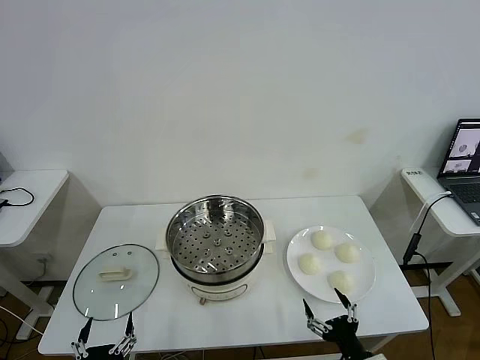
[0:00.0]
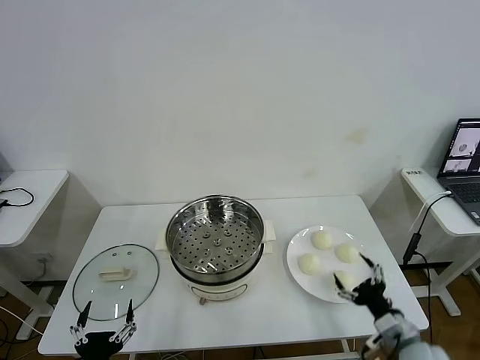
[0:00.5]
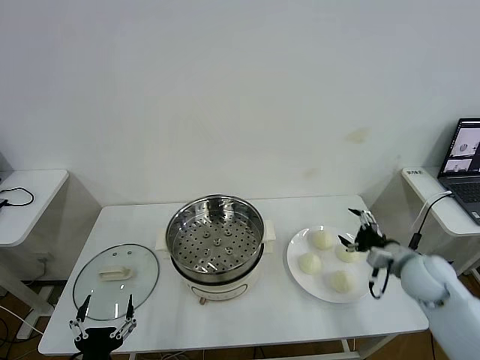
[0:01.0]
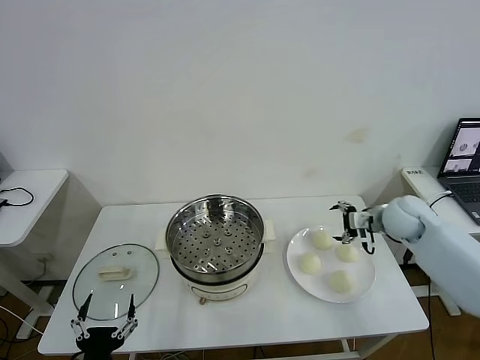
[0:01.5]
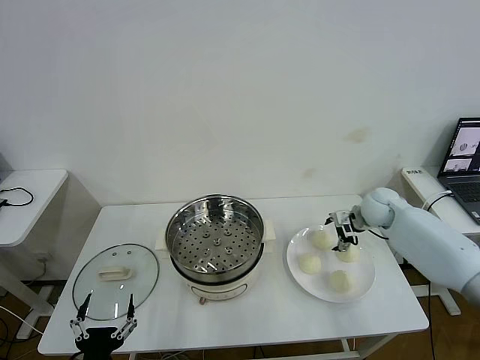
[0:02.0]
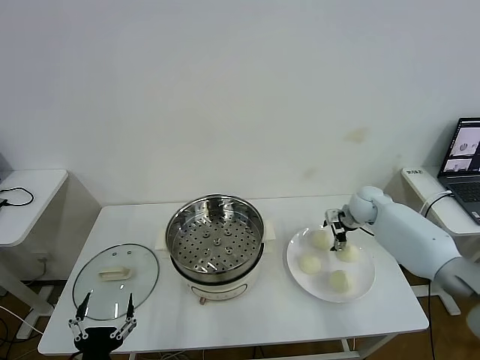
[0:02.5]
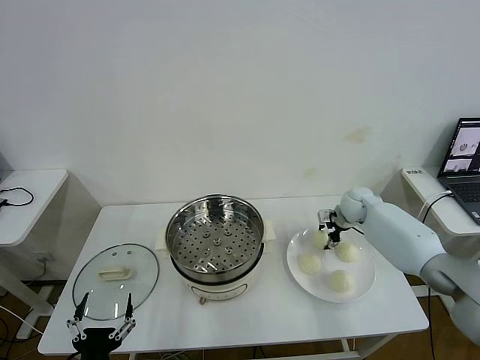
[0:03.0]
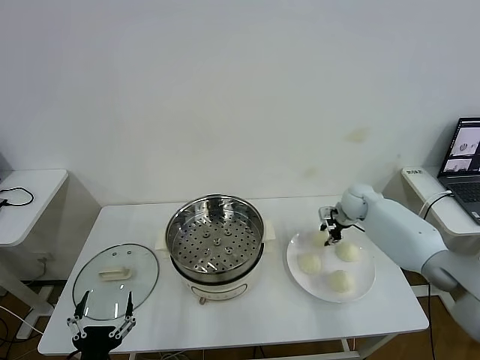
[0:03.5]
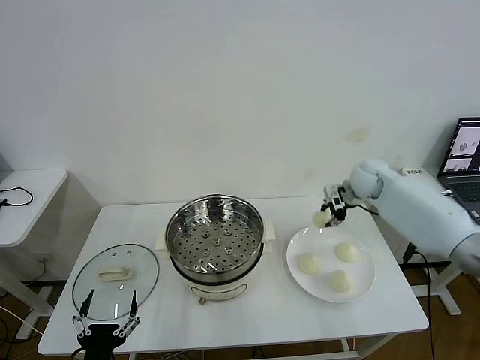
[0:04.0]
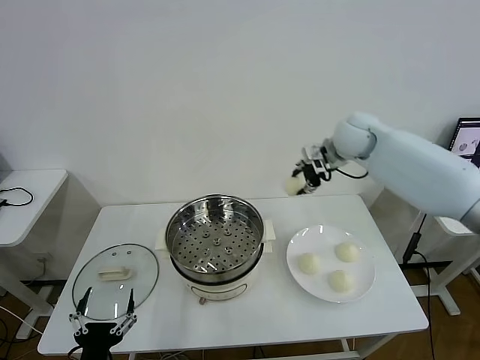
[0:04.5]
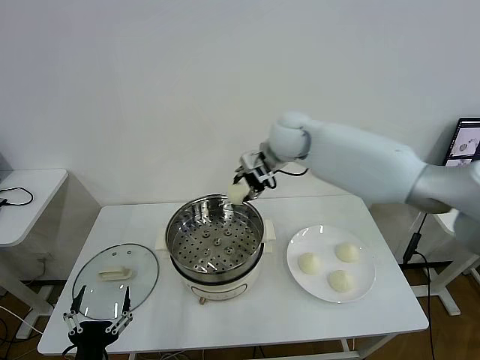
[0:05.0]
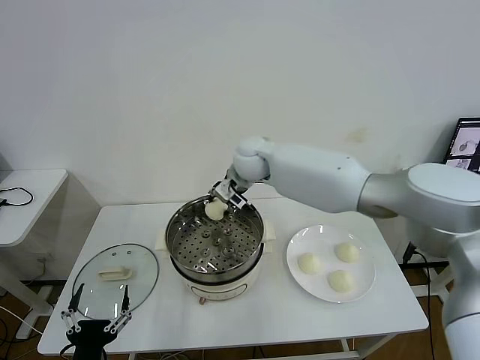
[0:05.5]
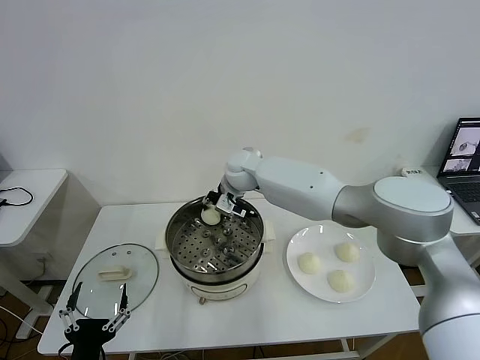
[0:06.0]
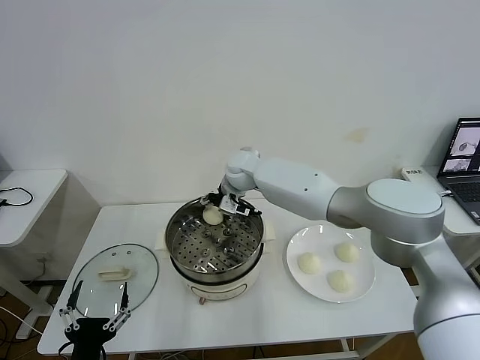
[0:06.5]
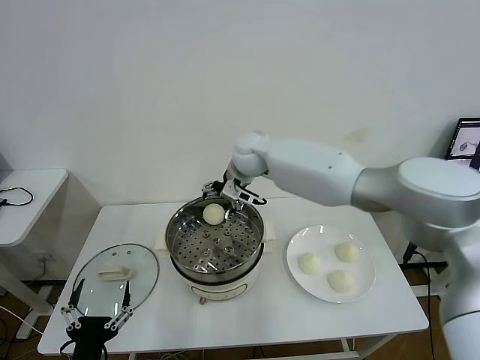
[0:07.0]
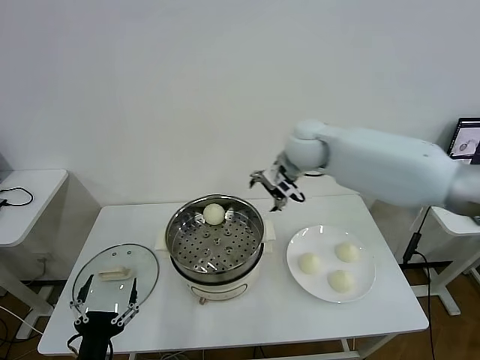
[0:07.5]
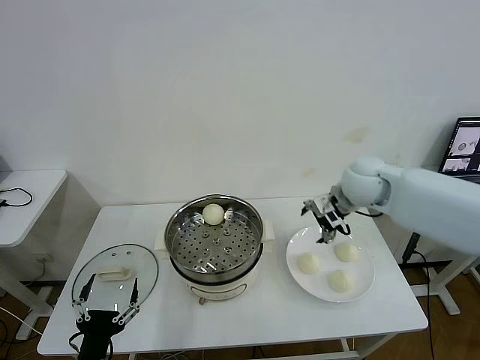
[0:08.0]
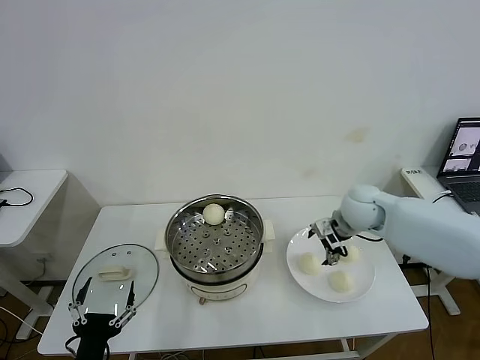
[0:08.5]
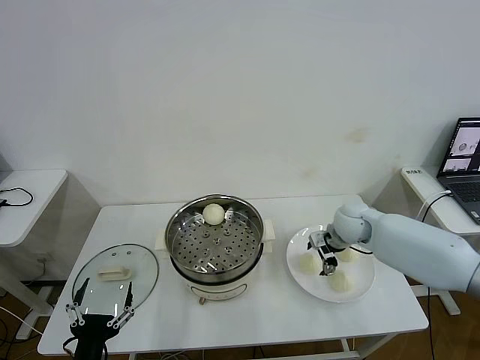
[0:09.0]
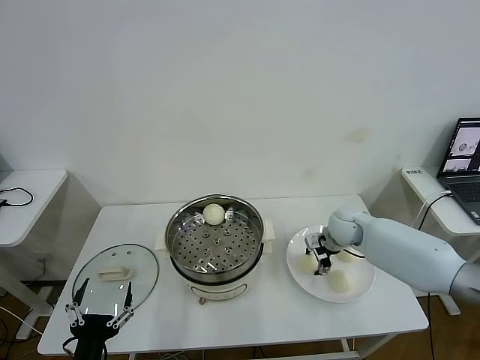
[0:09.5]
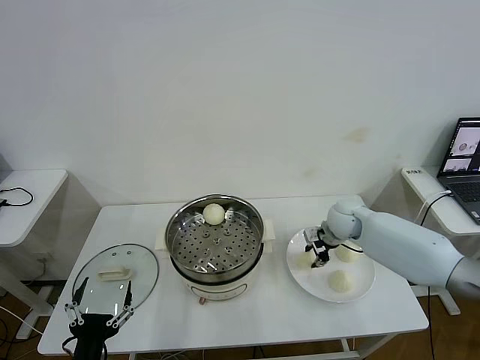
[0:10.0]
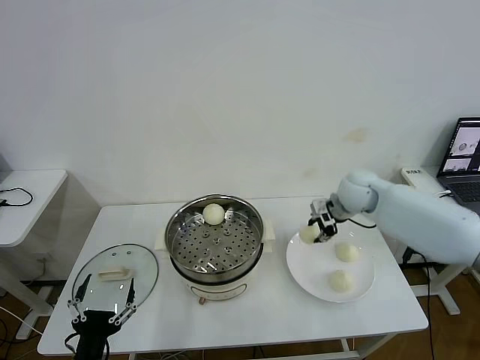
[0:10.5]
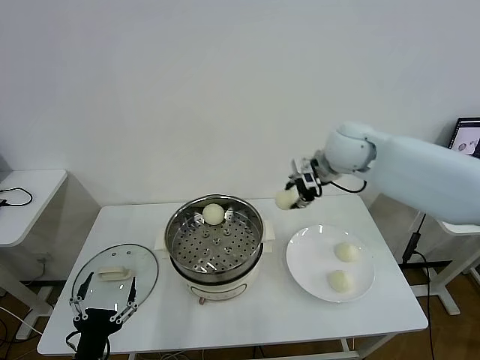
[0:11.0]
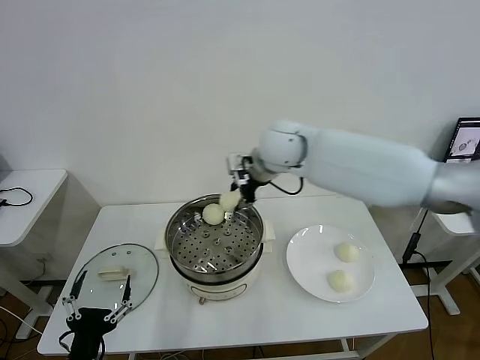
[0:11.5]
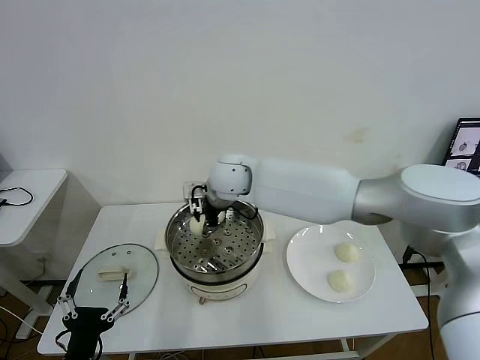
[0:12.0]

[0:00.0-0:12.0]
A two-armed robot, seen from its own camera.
Task of the whole recording: take steamed baozi put them in steamer then cover it.
Step, 0:00.0 to 0:03.0: Grasp the baozi in the plate with right gripper.
Step, 0:03.5 to 0:06.5: Place the baozi on the steamer with right gripper.
Step, 0:07.0 to 0:09.5: Grasp the baozi in the plate with right gripper.
0:02.0 to 0:04.0: The right gripper goes approximately 10 cm upward, and closes its fingers.
0:04.0 to 0:06.0: The right gripper goes some 30 cm to the left.
0:06.0 to 0:08.0: The right gripper goes about 25 cm to the right, and opens.
0:08.0 to 0:10.0: The right gripper travels downward by roughly 15 cm, and closes its fingers.
0:10.0 to 0:12.0: The right gripper is displaced to the left and upward by roughly 35 cm.

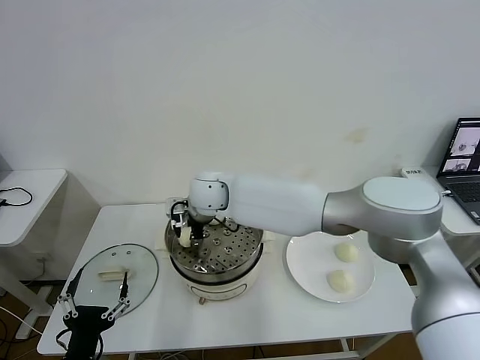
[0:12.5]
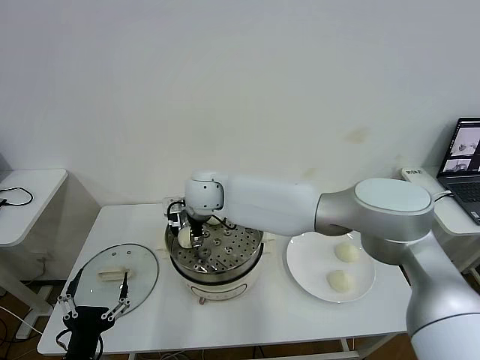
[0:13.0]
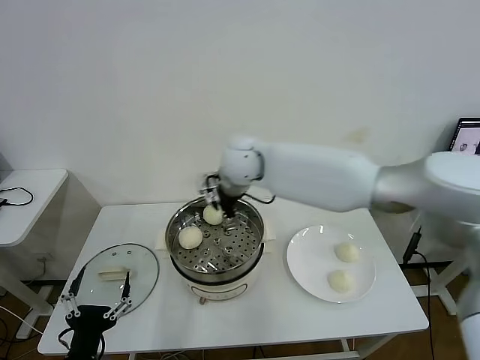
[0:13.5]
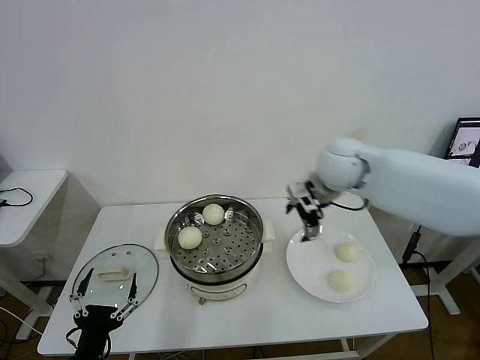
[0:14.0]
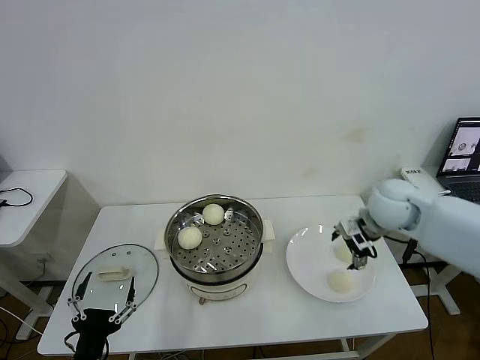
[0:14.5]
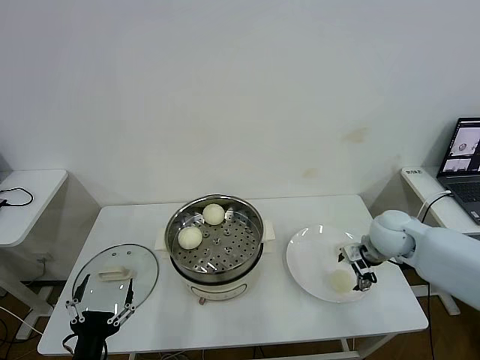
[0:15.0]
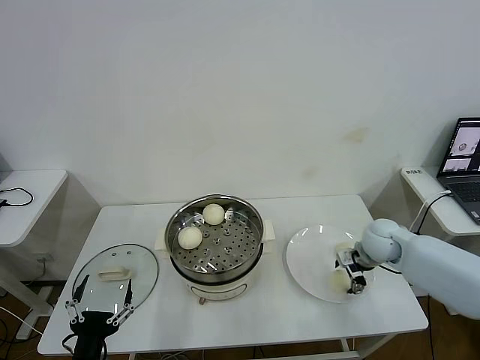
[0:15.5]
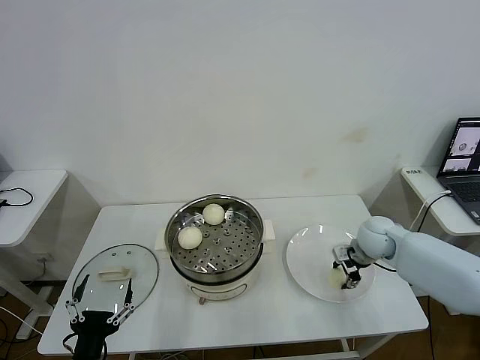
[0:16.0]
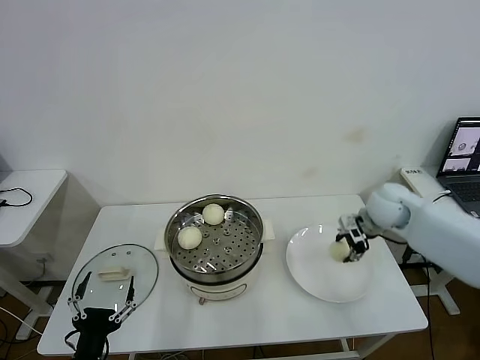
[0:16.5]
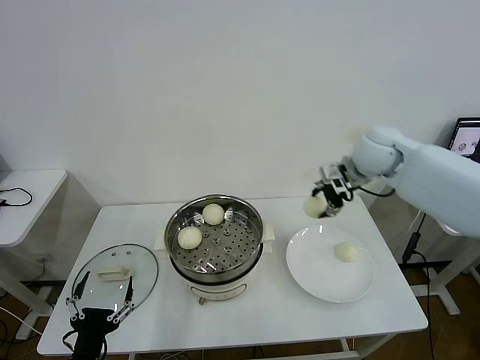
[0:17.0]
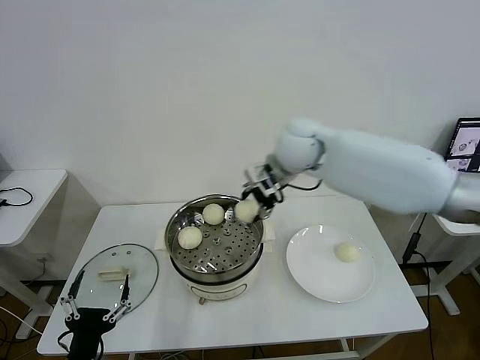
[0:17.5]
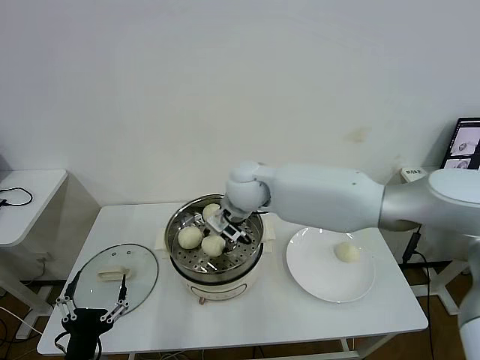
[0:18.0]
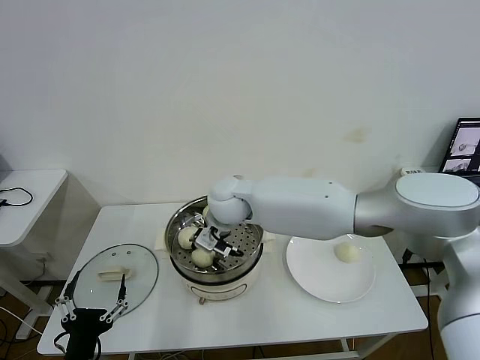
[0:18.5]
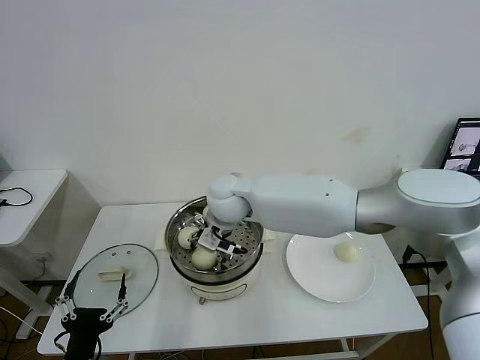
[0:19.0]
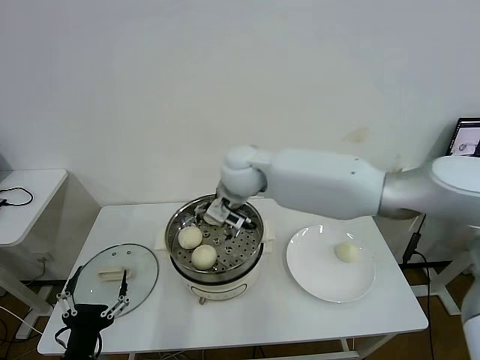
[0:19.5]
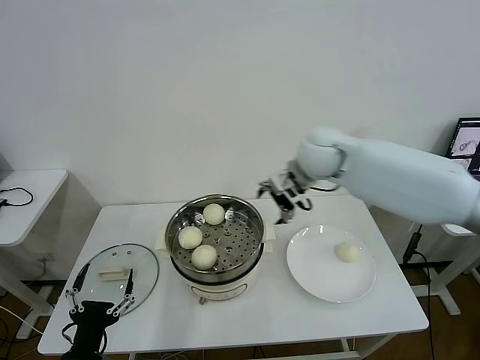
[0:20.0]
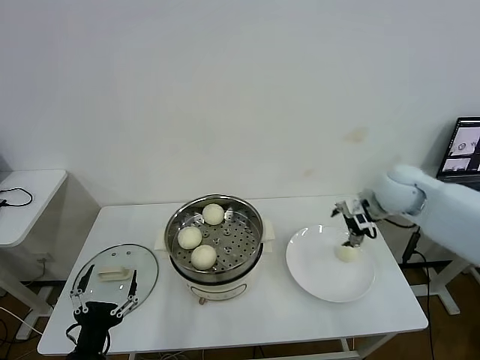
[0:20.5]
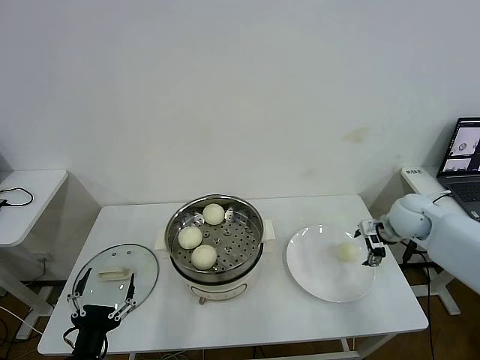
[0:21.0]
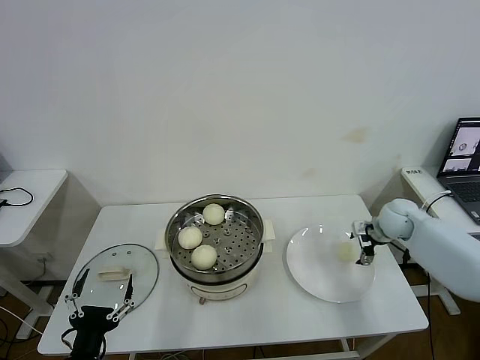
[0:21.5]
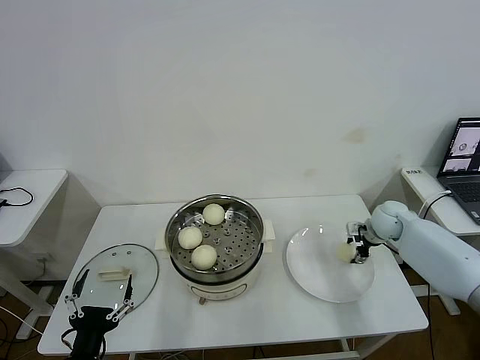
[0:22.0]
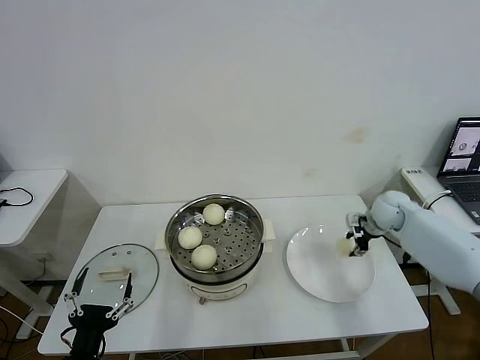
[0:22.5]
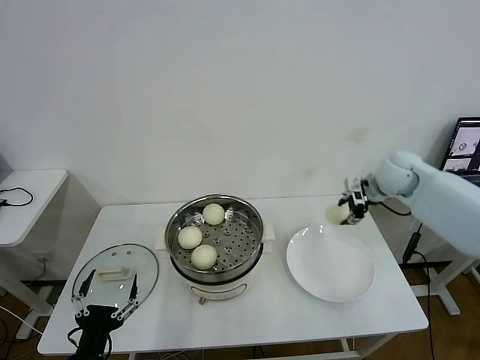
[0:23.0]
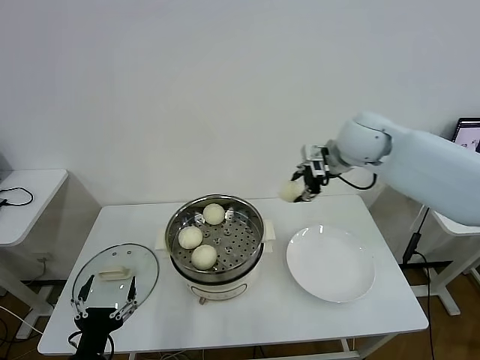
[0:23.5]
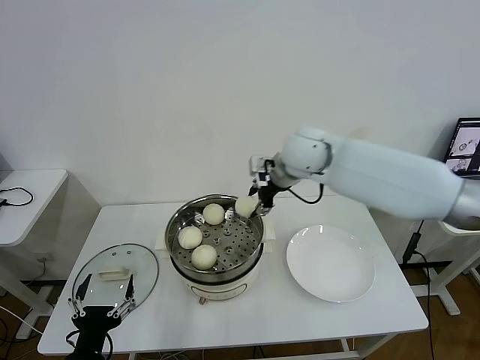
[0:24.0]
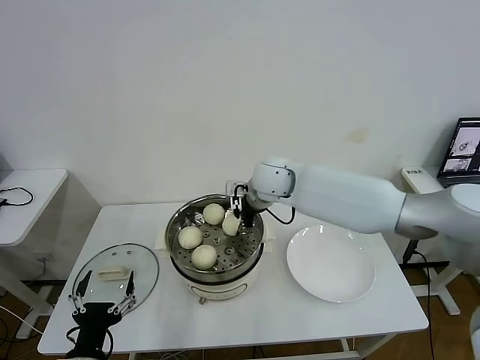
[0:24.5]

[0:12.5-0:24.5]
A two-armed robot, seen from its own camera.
Task of the whole recording: take steamed baozi put them in steamer then cover it.
Step, 0:13.5 to 0:15.5: Grasp the baozi in the plate with right gripper.
Step, 0:16.0 to 0:19.0: Place the baozi on the steamer with right gripper.
Step, 0:19.5 to 0:22.0: Grasp the baozi in the plate with right gripper.
0:12.5 to 0:14.5: The right gripper shifts roughly 40 cm to the right, and opens its fingers.
0:14.5 to 0:16.5: The right gripper reaches approximately 10 cm downward, then returns, and closes up.
0:16.5 to 0:18.5: The right gripper heads to the left, covering about 35 cm.
0:18.5 to 0:20.5: The right gripper is displaced to the right by about 35 cm, and opens up.
0:20.5 to 0:22.5: The right gripper moves downward, to the right and forward, about 15 cm, and closes its fingers.
0:22.5 to 0:24.5: The right gripper is displaced to the left by about 30 cm.

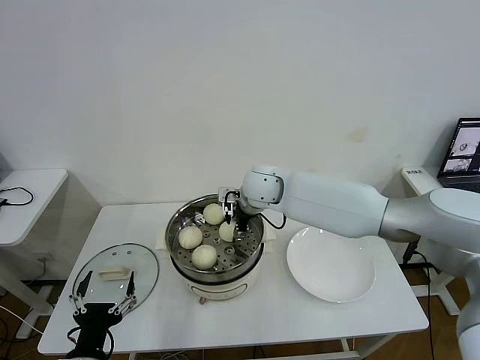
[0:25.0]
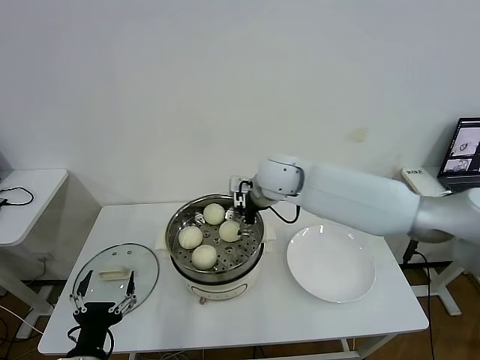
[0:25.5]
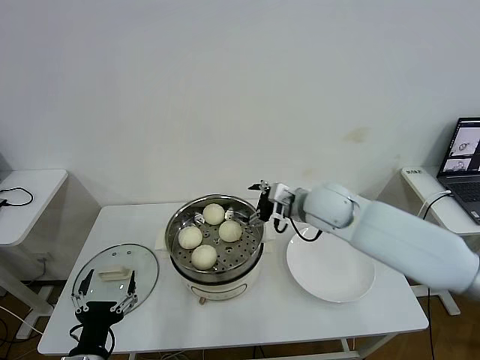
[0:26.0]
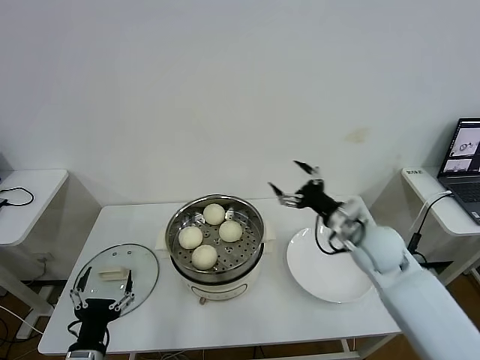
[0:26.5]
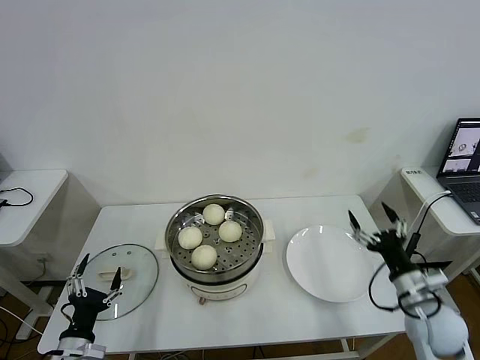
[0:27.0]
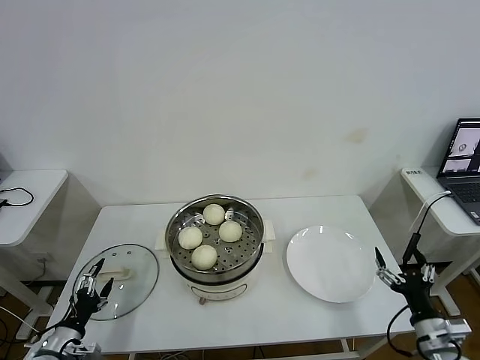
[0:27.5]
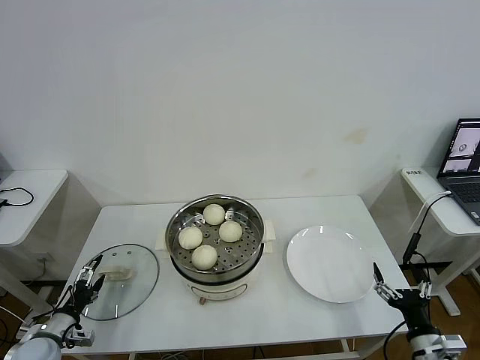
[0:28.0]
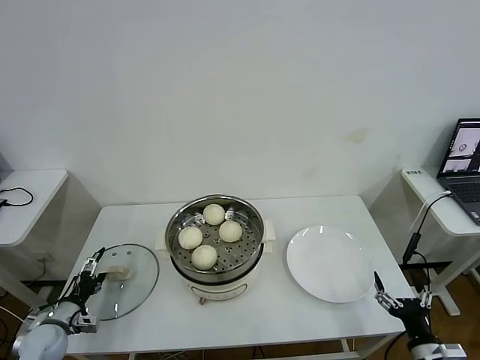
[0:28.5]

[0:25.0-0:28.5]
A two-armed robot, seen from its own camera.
Task of the whole recording: take steamed baozi put them in steamer then cover it.
0:25.0 to 0:27.0: The right gripper shifts some 40 cm to the right, backward and downward, and opens, while the left gripper travels to the left and downward by about 10 cm.
0:27.0 to 0:28.5: The left gripper is displaced to the left, forward and downward by about 20 cm, while the right gripper heads backward and downward, covering about 15 cm.
